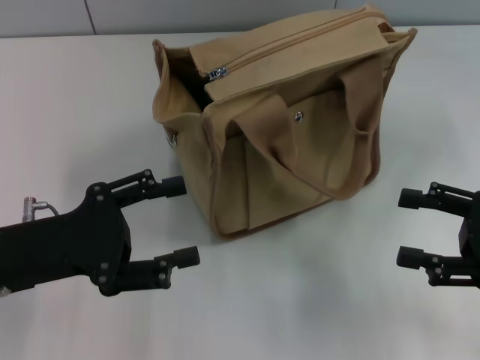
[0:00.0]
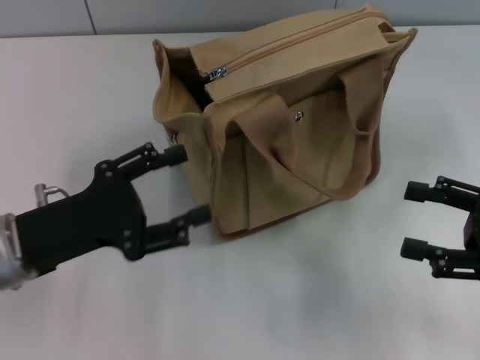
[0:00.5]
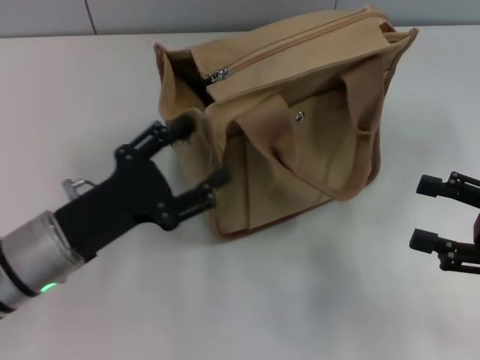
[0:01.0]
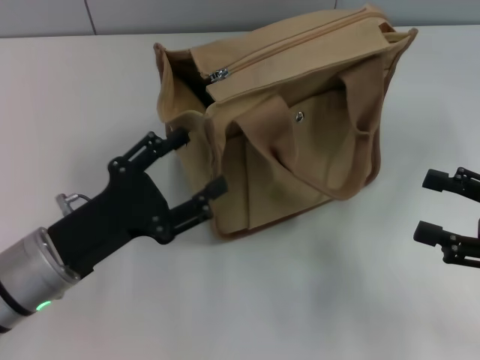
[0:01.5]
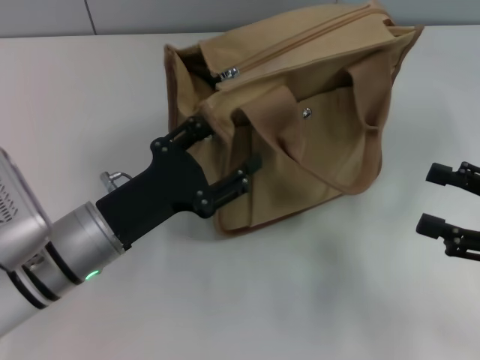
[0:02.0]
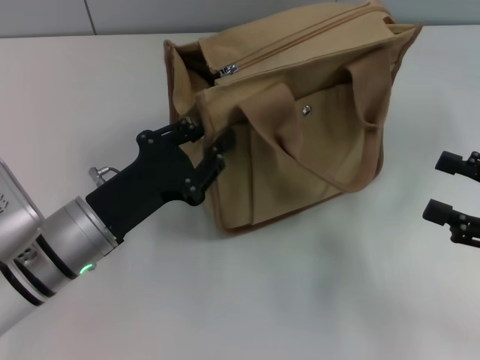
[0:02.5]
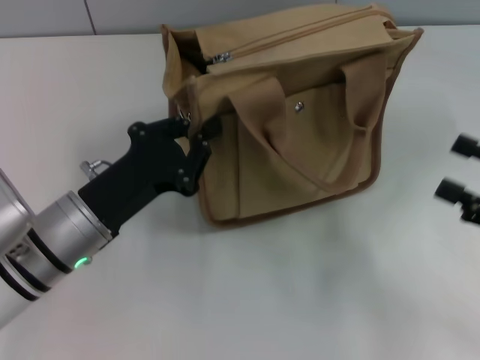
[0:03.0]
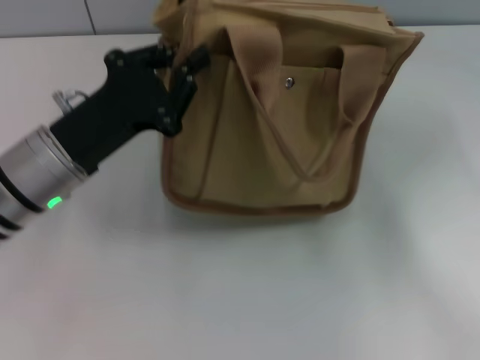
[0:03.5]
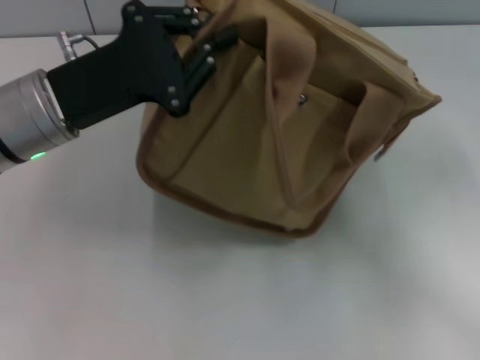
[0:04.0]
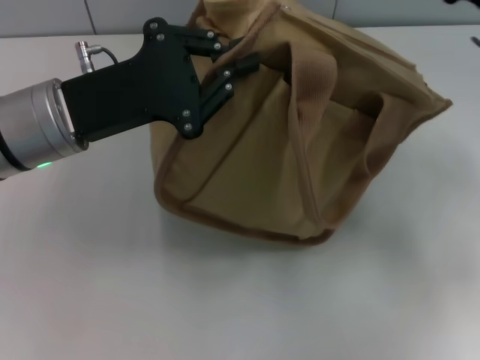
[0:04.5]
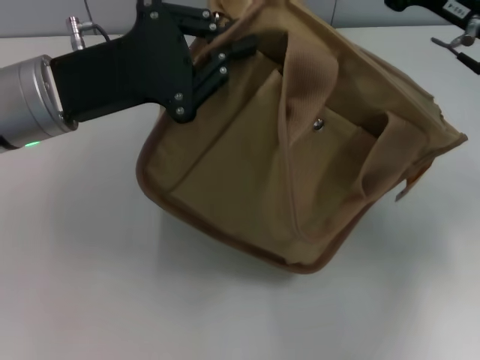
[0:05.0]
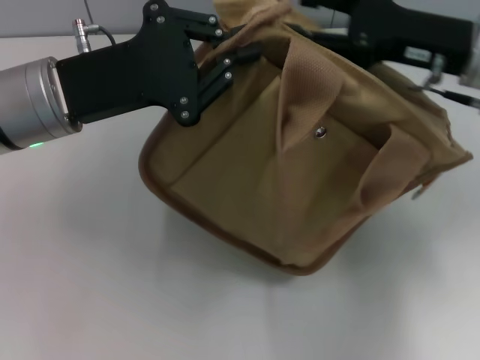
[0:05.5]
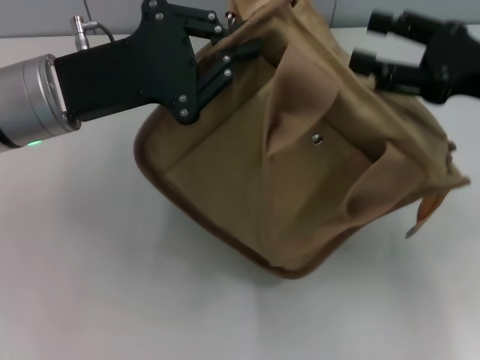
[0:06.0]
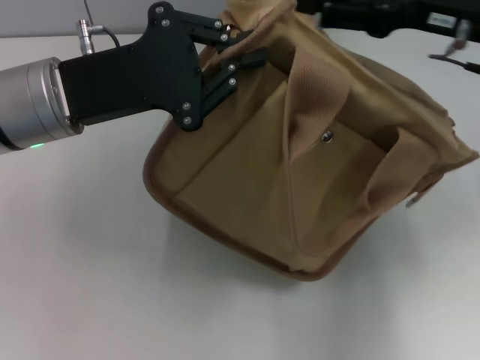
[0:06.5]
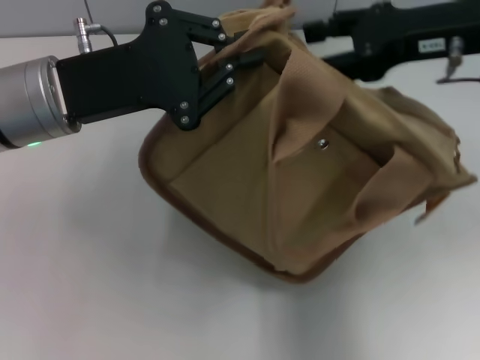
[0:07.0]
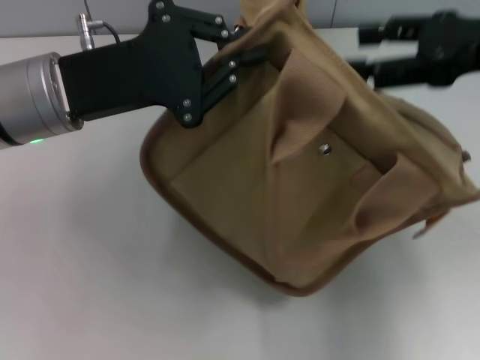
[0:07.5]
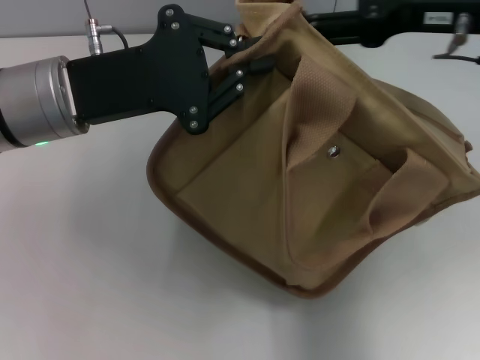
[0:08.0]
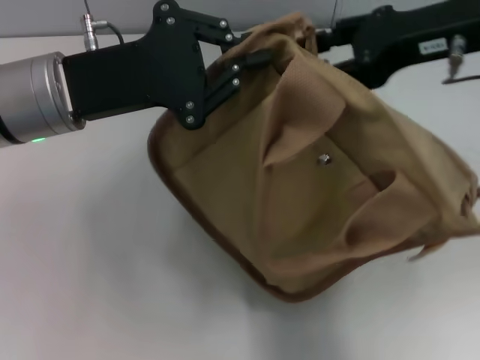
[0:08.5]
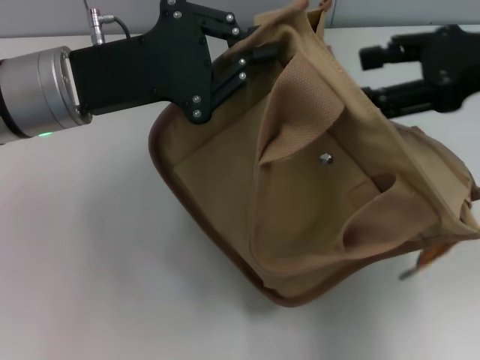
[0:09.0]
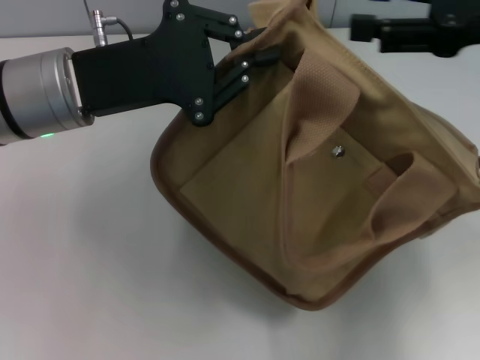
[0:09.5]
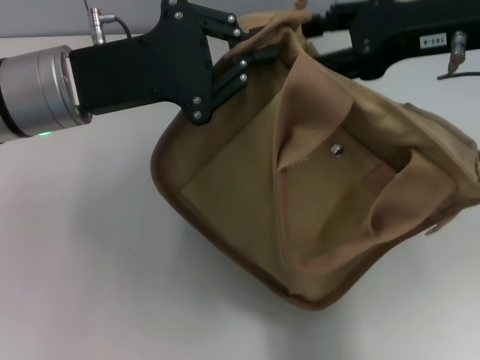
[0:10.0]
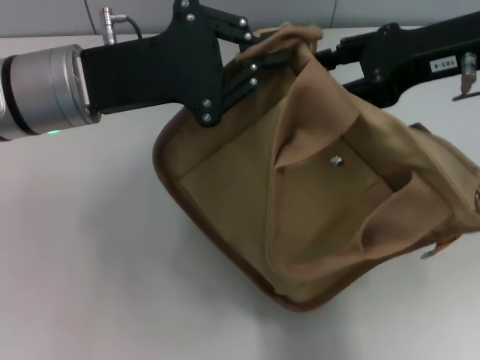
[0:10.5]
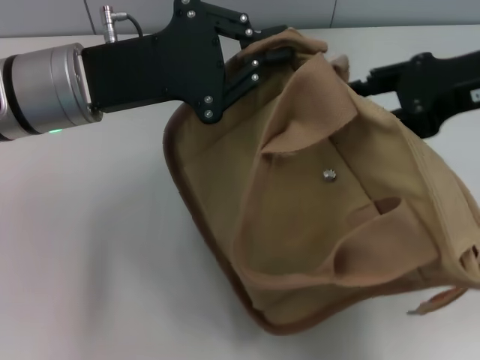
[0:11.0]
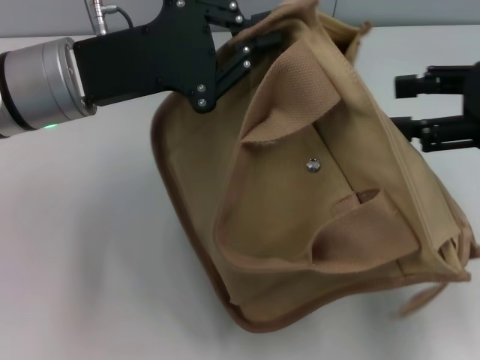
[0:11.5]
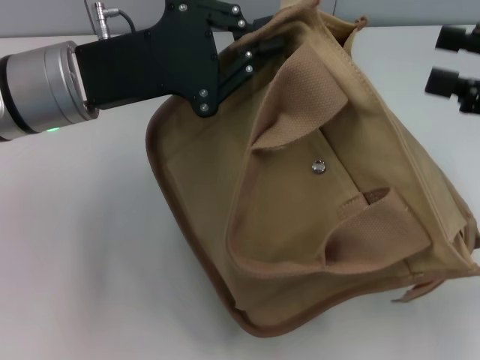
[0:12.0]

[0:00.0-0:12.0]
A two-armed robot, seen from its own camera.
0.0 to 2.0 s: The left gripper heads to the right, covering roughly 10 cm.
2.0 to 4.0 s: The left gripper goes some 10 cm upward and forward, and closes its fingers.
4.0 to 6.0 s: The right gripper shifts some 10 cm forward and upward.
6.0 to 8.0 s: The right gripper moves upward and to the left, approximately 10 cm.
10.0 to 12.0 s: The right gripper is displaced to the right and backward by roughly 15 cm.

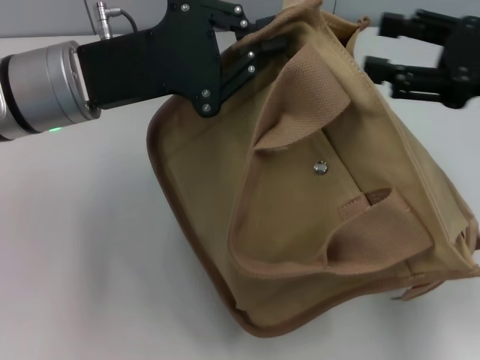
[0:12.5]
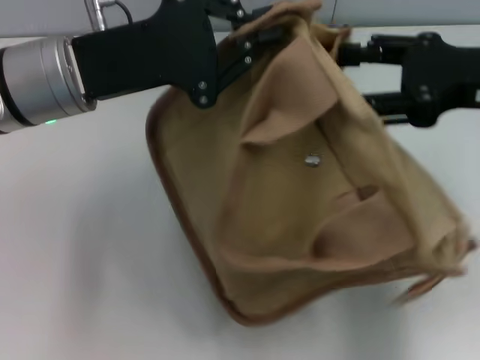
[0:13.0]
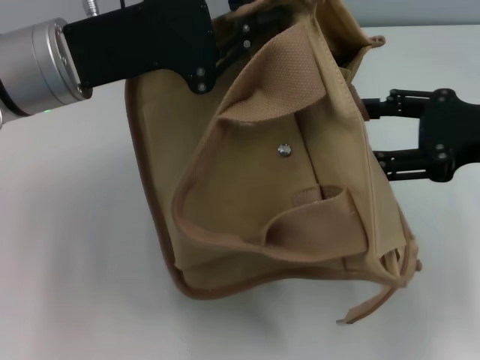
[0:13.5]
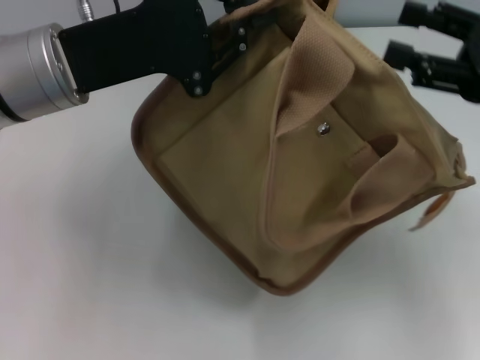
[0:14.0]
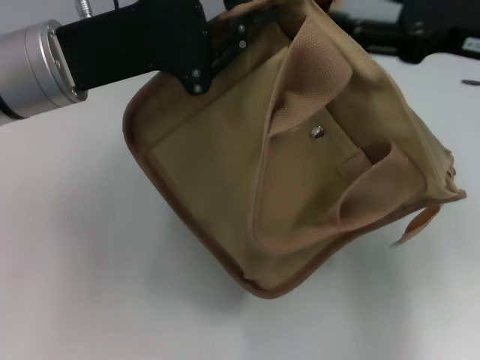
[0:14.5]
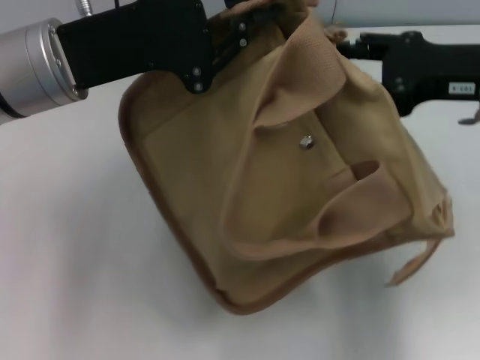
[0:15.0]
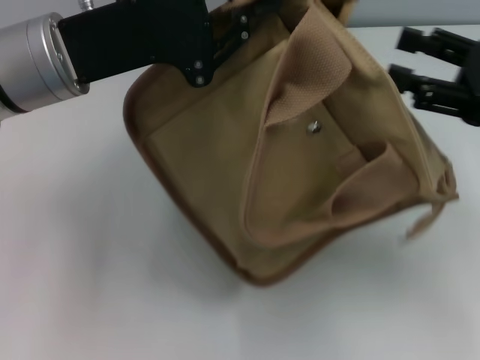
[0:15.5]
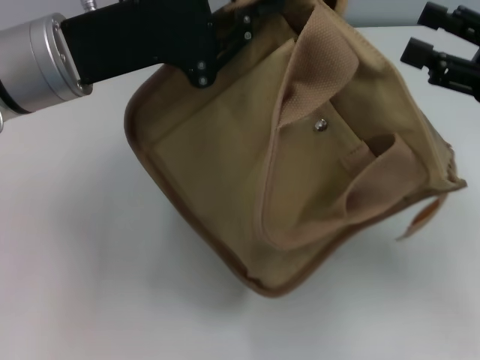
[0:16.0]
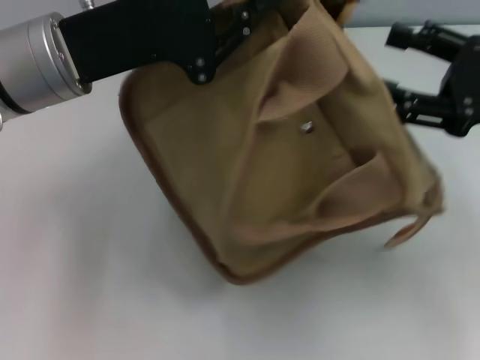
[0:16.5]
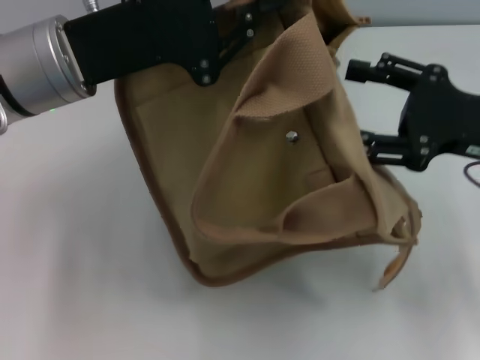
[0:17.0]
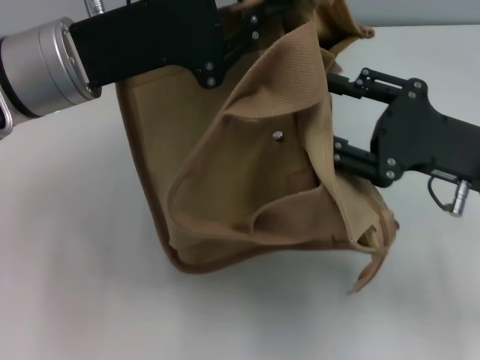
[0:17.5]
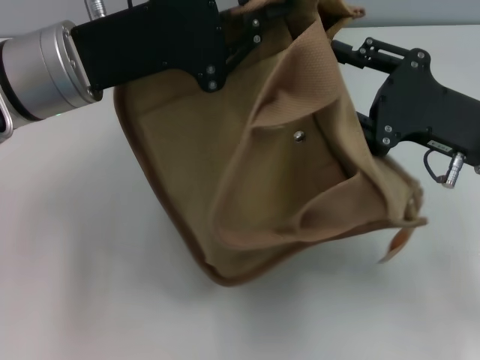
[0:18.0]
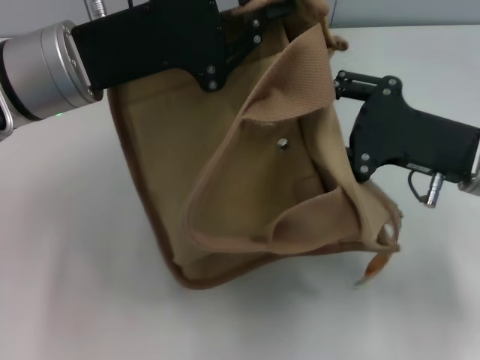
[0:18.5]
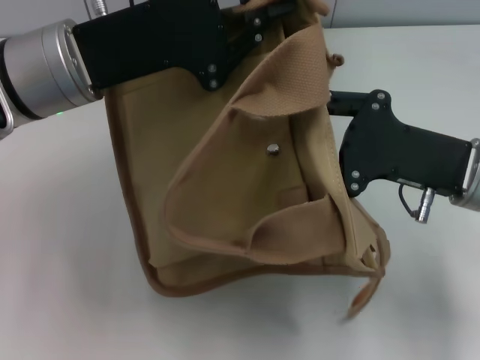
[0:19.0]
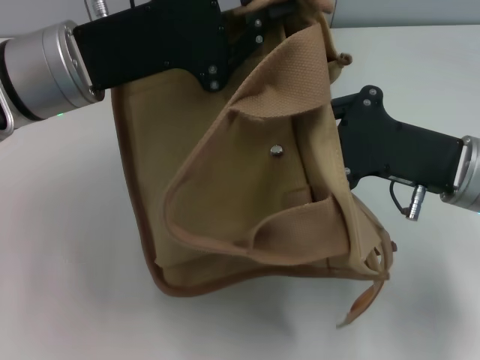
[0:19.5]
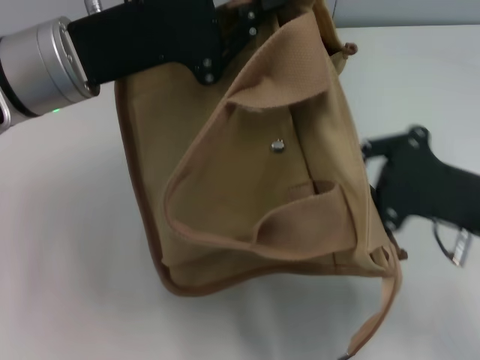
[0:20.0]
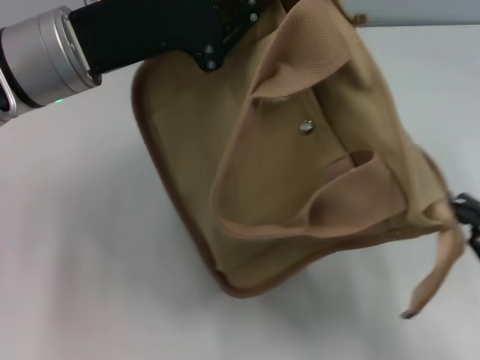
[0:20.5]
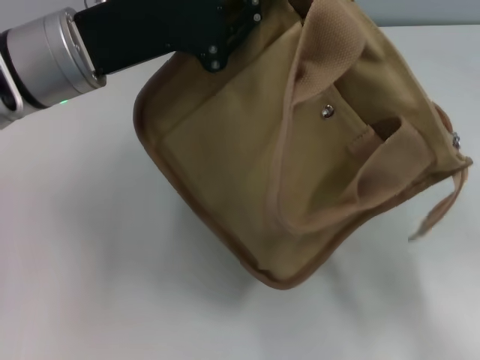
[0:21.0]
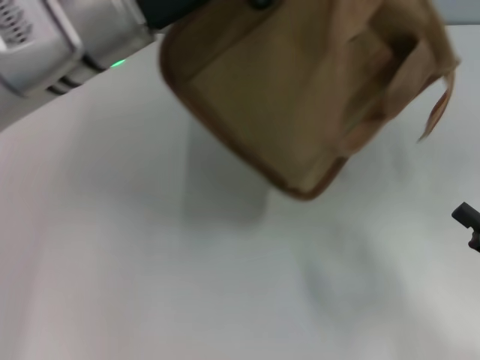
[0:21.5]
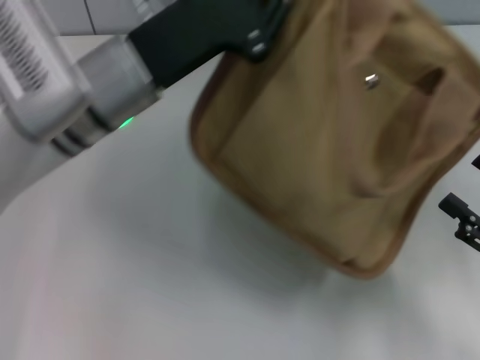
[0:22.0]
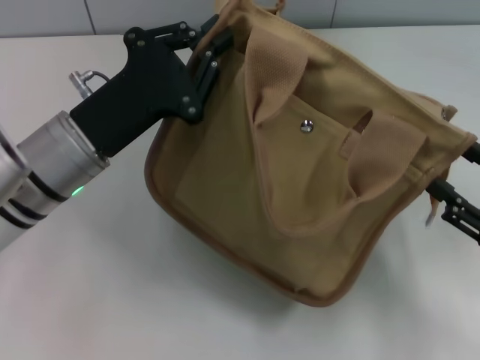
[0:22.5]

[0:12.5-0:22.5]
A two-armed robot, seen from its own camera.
Step, 12.5 to 20.5 s: Pull open the zipper with your right hand.
14.5 to 16.5 s: The right gripper changes place by about 5 cm.
16.5 to 18.5 s: The right gripper moves to the left and downward, some 10 cm.
18.5 to 20.5 s: The right gripper goes roughly 15 cm backward and to the right, and closes.
20.5 to 22.5 s: The right gripper opens up, while the left gripper shifts about 10 cm downward.

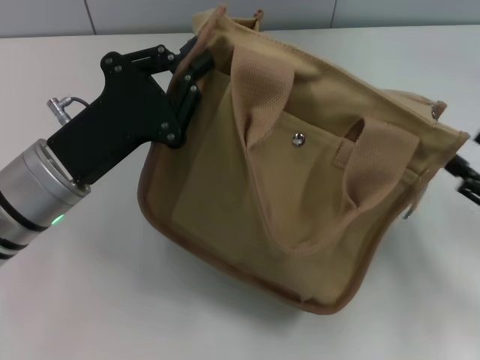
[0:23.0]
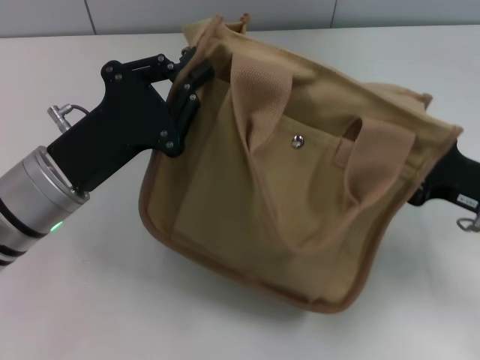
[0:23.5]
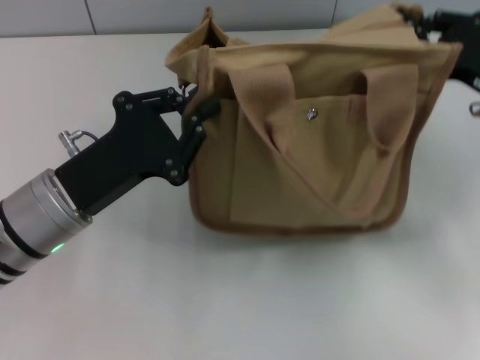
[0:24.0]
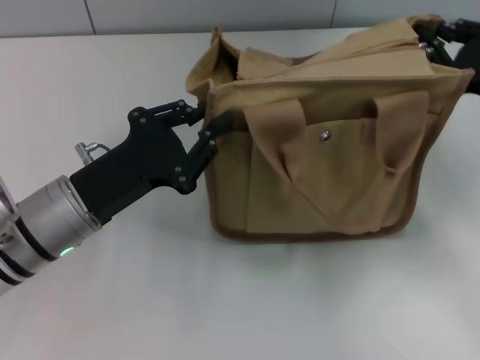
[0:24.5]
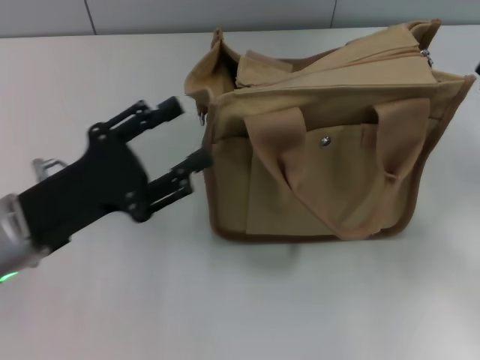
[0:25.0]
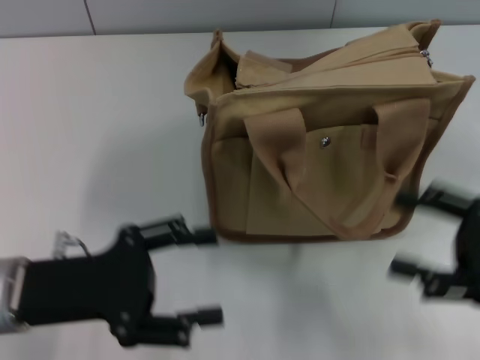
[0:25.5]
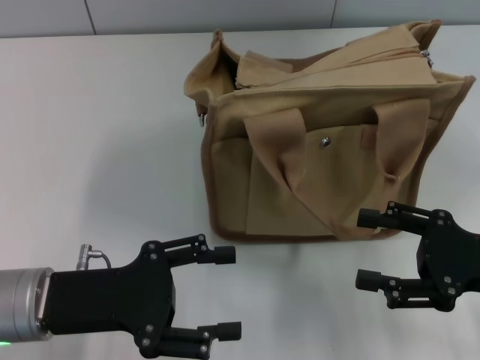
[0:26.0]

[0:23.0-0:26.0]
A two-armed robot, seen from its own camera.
23.0 to 24.5 s: The right gripper goes about 15 cm forward and upward, and closes up.
24.5 to 26.0 s: The left gripper changes place by roughly 5 cm, and opens. Meanwhile the right gripper heads backward, covering approximately 10 cm, and opens.

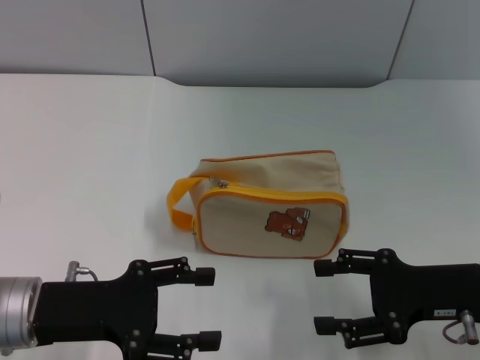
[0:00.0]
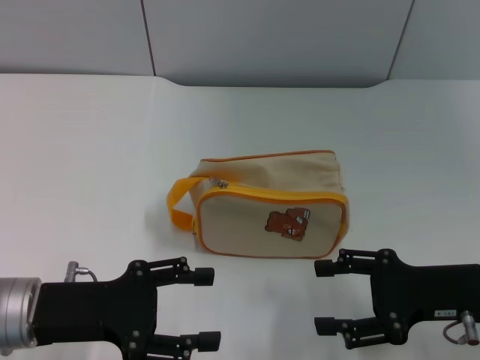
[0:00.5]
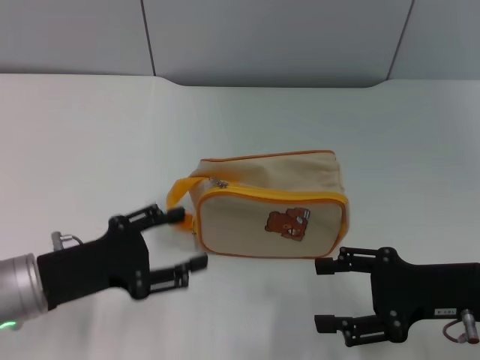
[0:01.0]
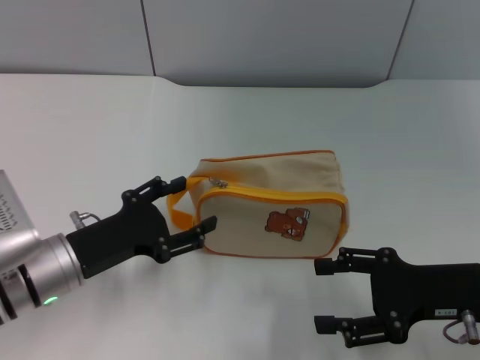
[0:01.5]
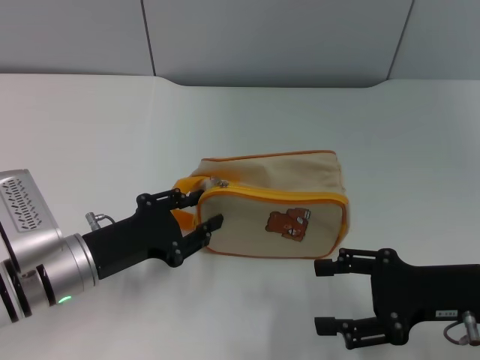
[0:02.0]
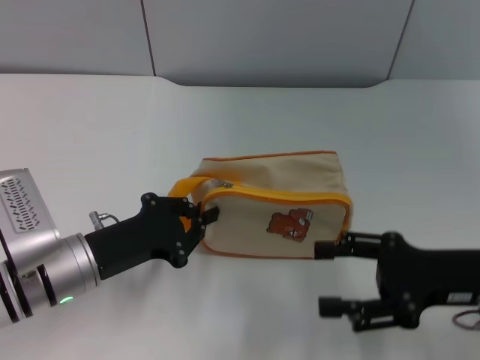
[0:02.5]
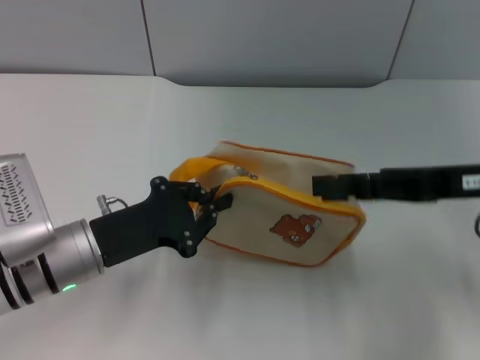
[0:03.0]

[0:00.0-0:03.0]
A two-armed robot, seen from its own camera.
0.0 to 1.5 s: The left gripper shifts by some 5 cm.
1.5 to 3.0 s: The right gripper is displaced upward and forward by some 10 cm, while the left gripper closes.
